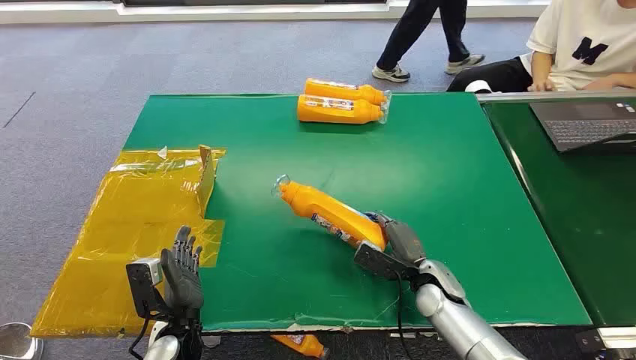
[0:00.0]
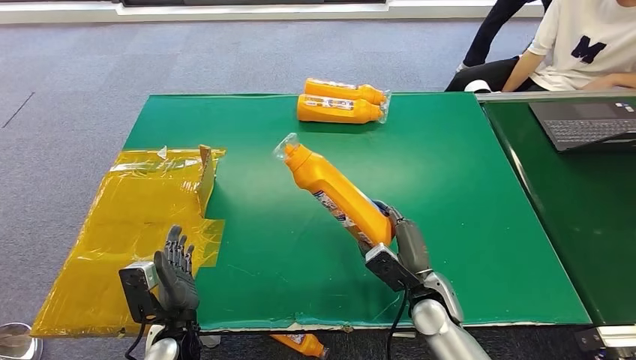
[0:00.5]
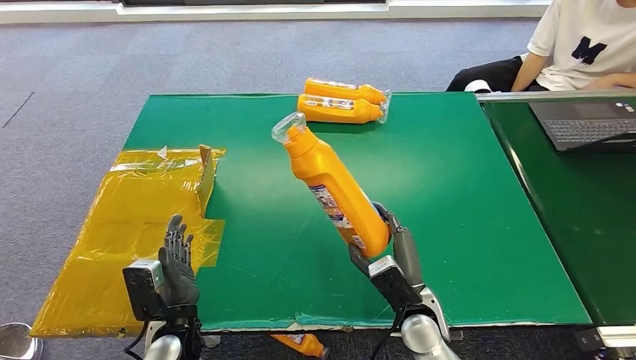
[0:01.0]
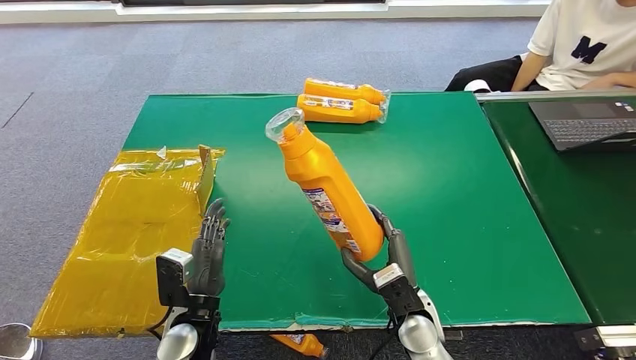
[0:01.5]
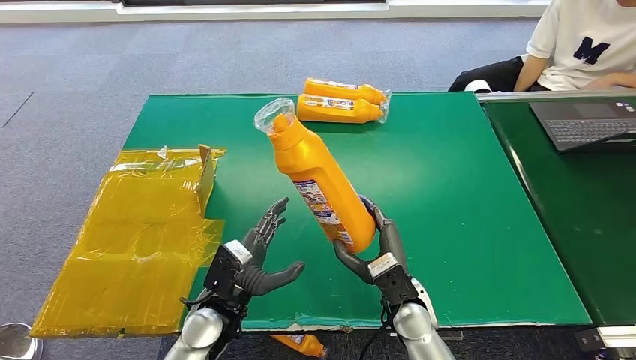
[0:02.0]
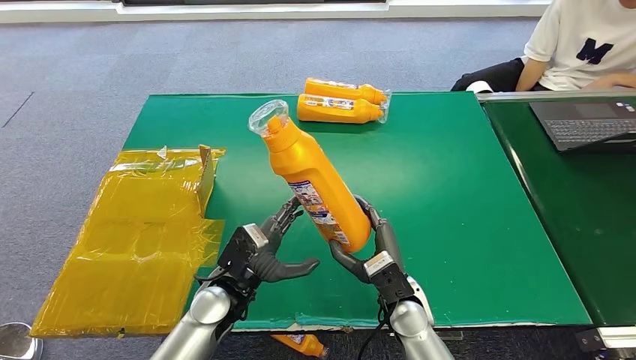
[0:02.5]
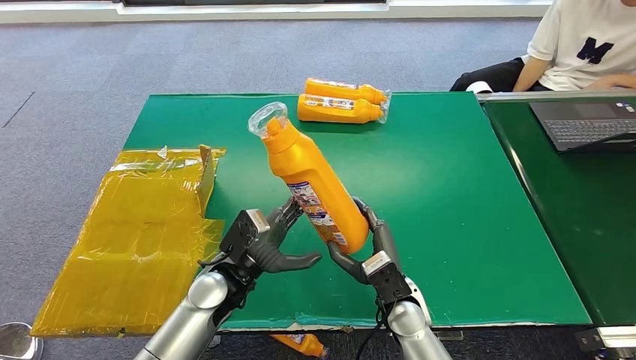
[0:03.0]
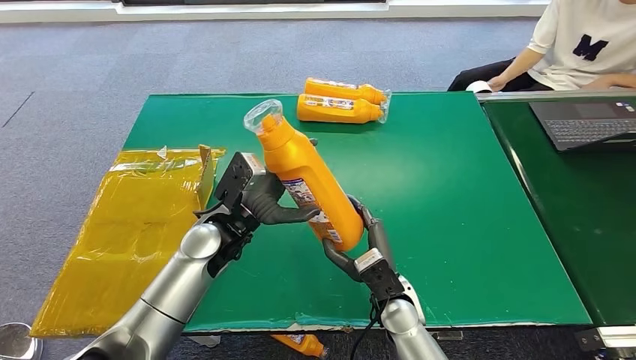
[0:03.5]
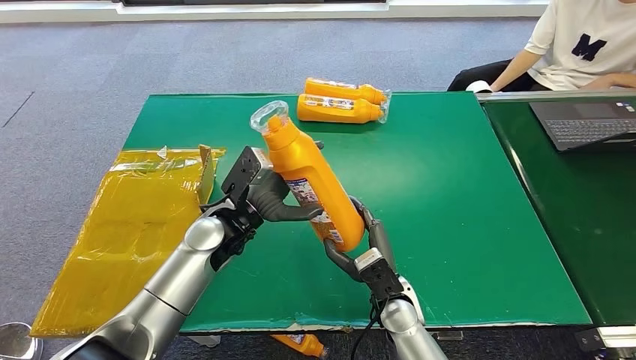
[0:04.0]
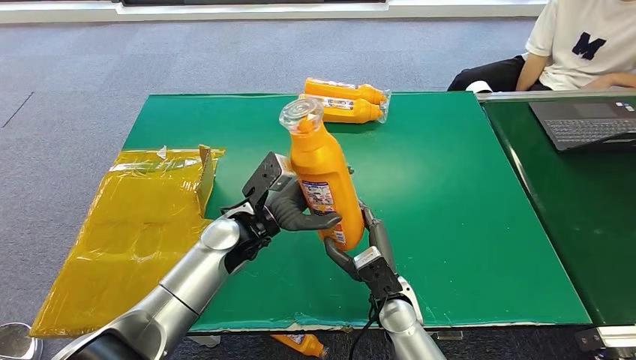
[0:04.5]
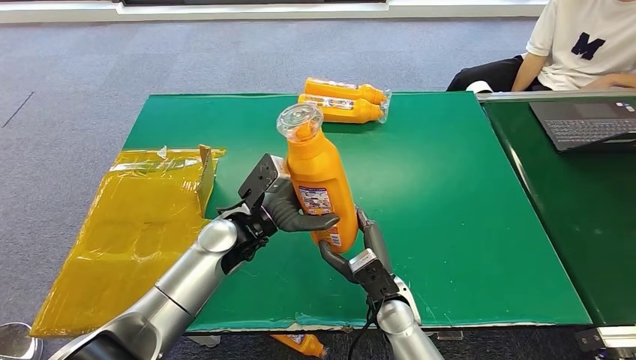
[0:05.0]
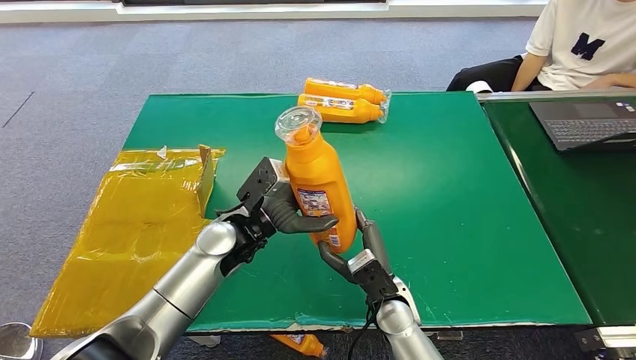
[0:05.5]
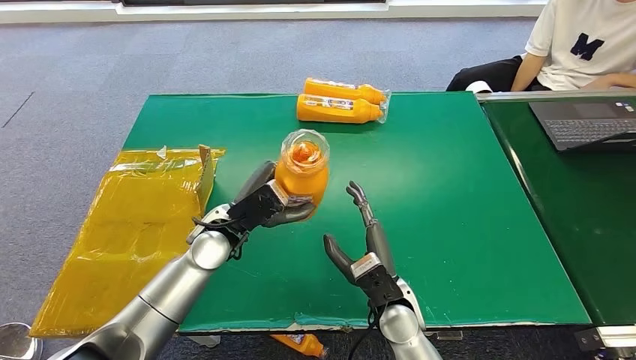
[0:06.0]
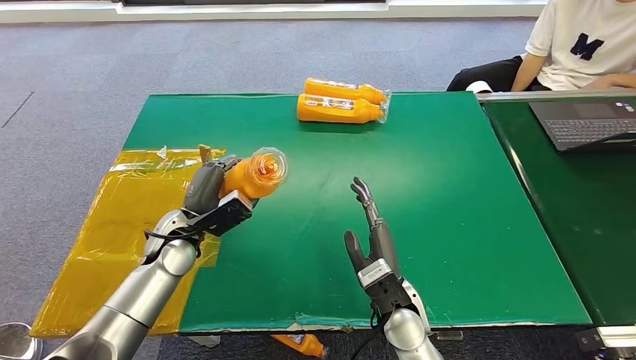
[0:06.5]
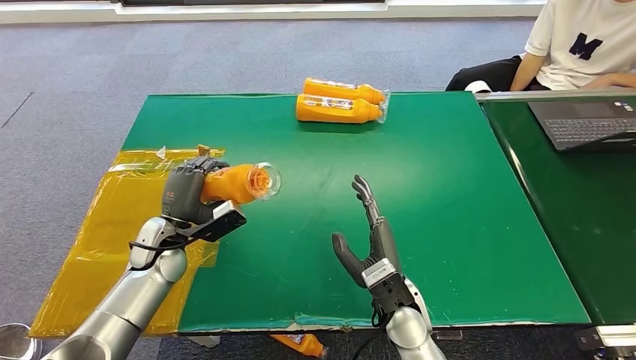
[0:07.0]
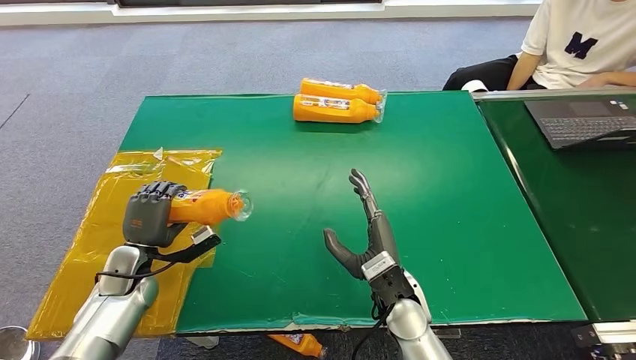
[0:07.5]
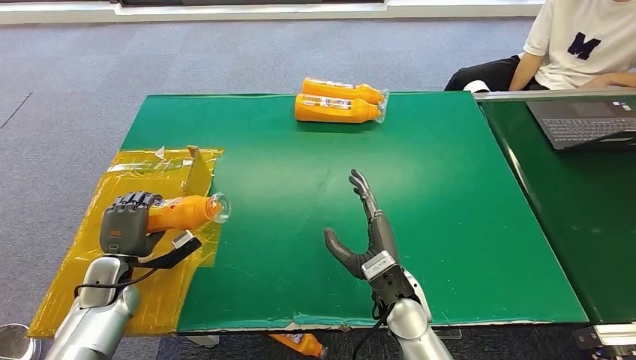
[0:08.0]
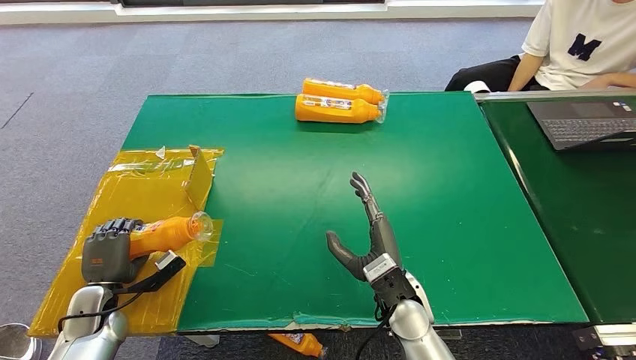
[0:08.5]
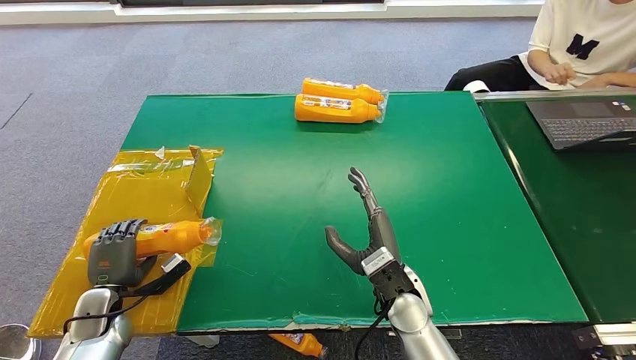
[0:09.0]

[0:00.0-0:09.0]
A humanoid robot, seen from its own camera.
Step, 0:00.0 to 0:00.5: Pick up the bottle from the table.
Step, 0:04.5 to 0:09.0: Turn the bottle to the front side.
0:02.0 to 0:04.5: The left hand travels forward and upward by about 15 cm.
0:04.5 to 0:07.0: The left hand heads to the left, covering roughly 15 cm.
0:07.0 to 0:09.0: The left hand moves to the left, backward and downward, about 20 cm.

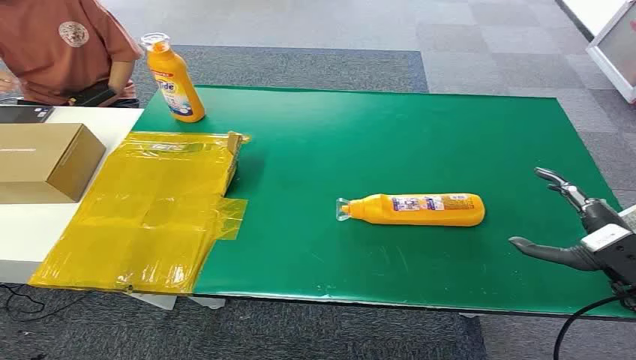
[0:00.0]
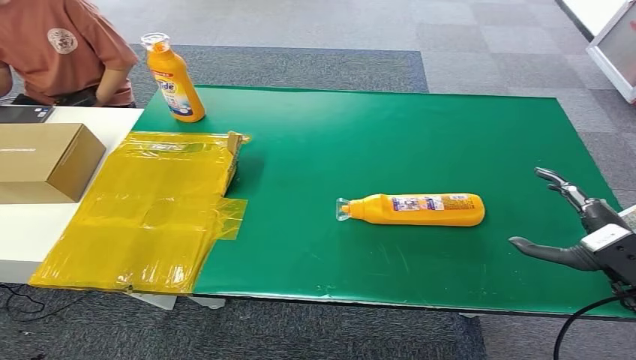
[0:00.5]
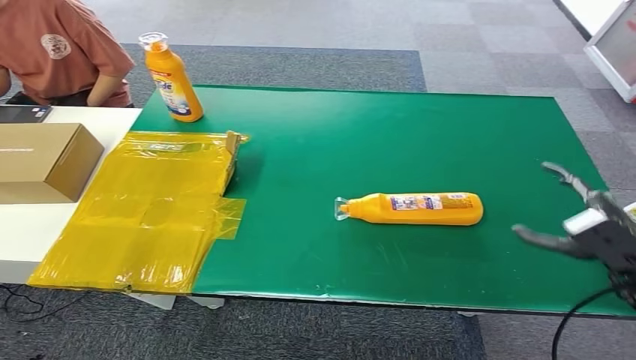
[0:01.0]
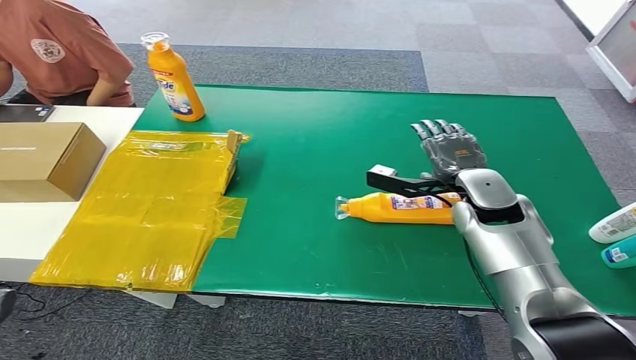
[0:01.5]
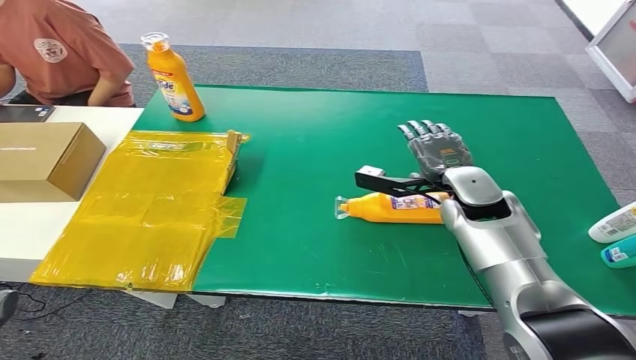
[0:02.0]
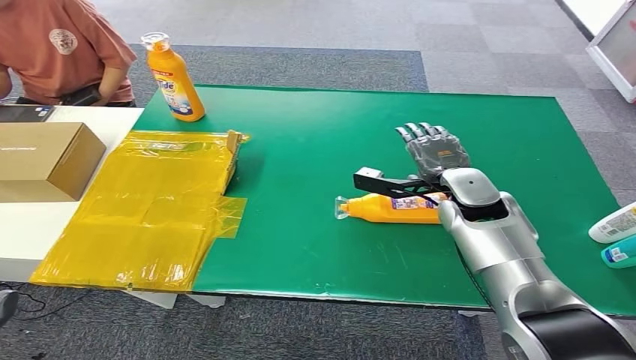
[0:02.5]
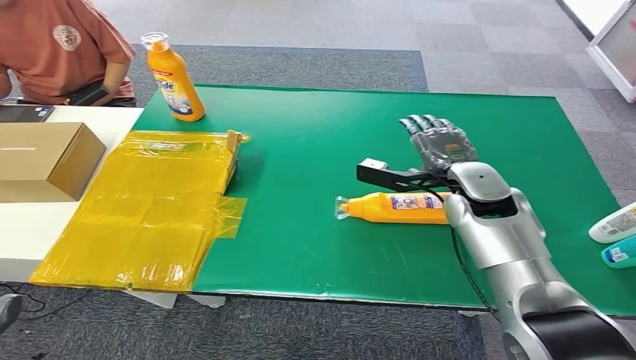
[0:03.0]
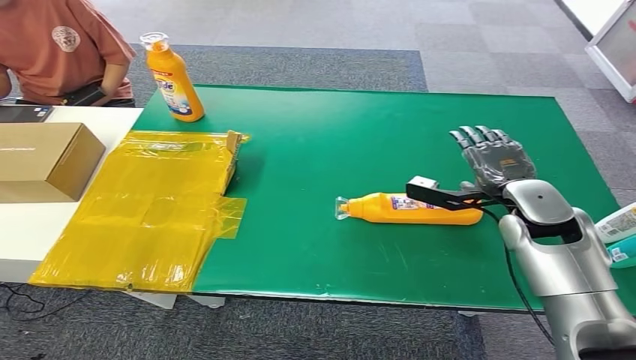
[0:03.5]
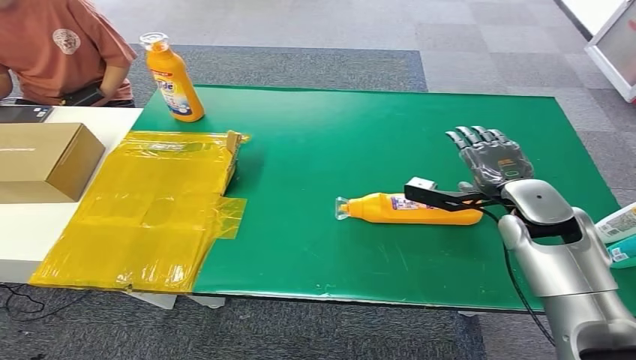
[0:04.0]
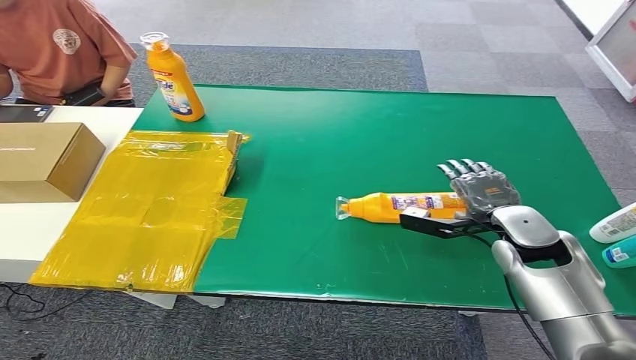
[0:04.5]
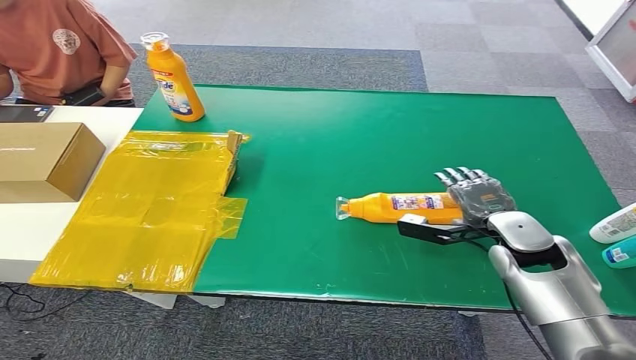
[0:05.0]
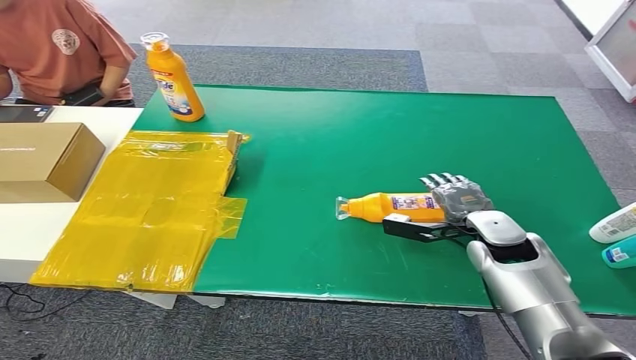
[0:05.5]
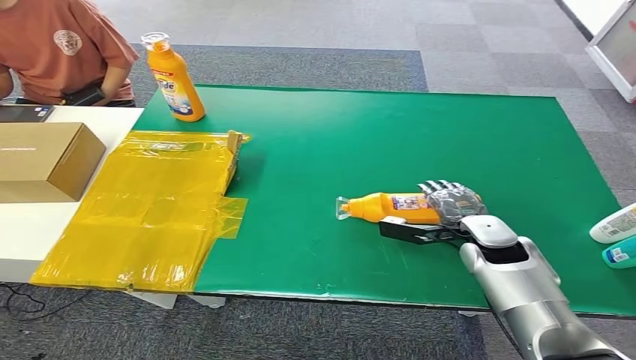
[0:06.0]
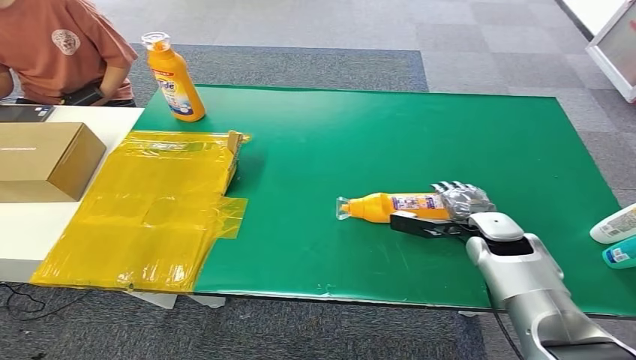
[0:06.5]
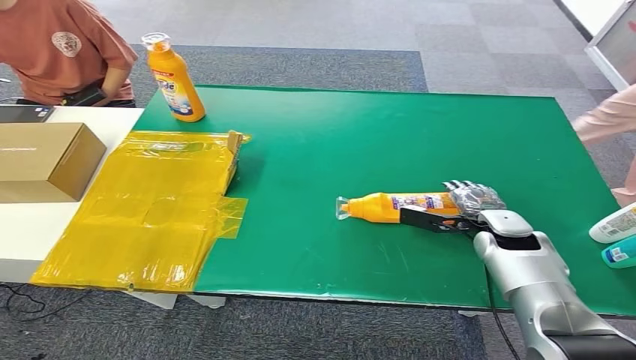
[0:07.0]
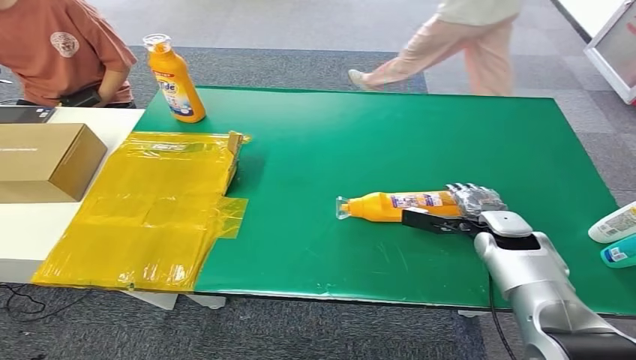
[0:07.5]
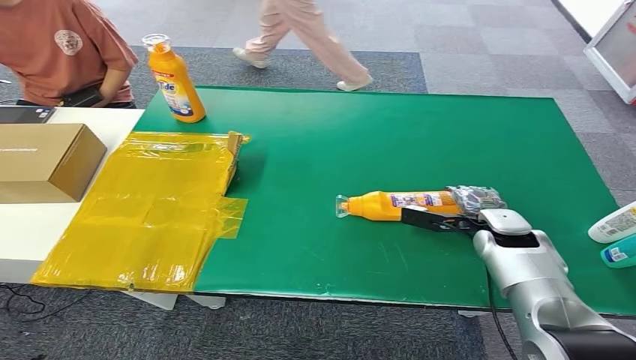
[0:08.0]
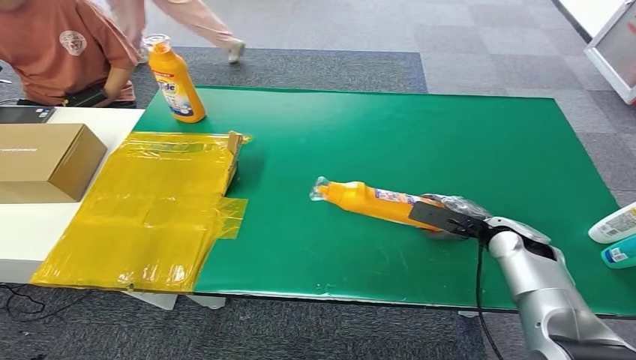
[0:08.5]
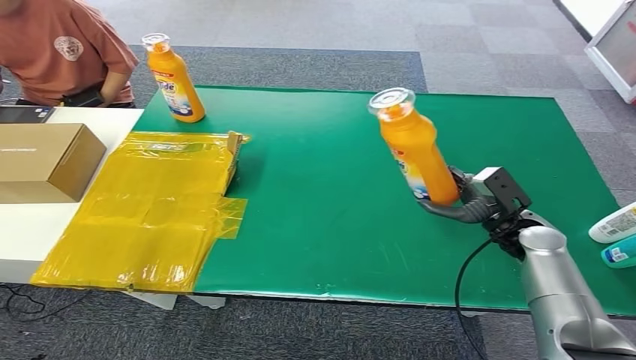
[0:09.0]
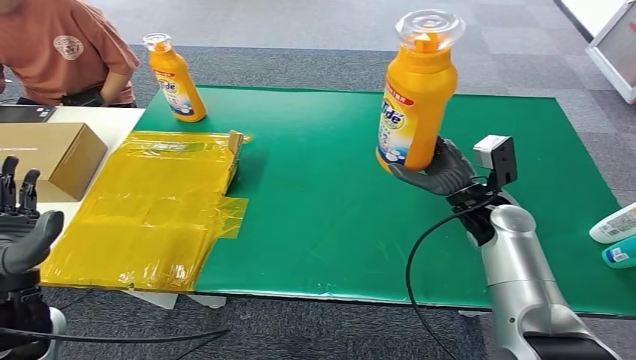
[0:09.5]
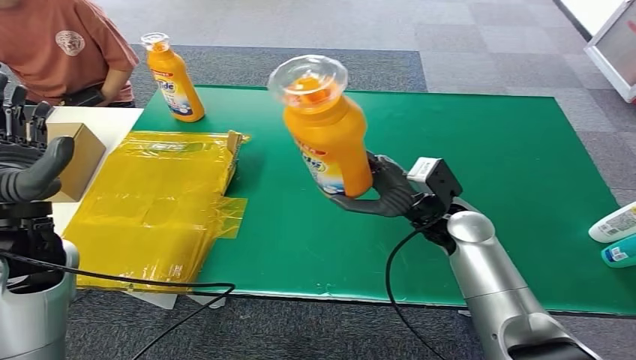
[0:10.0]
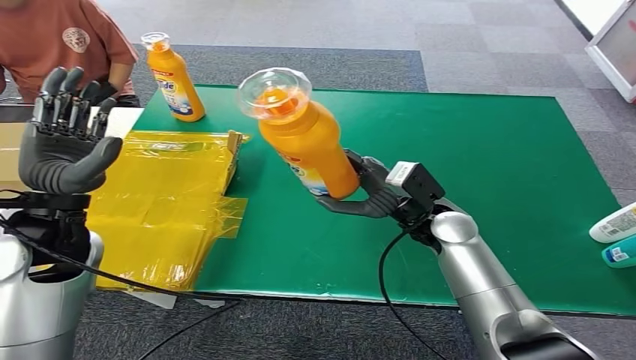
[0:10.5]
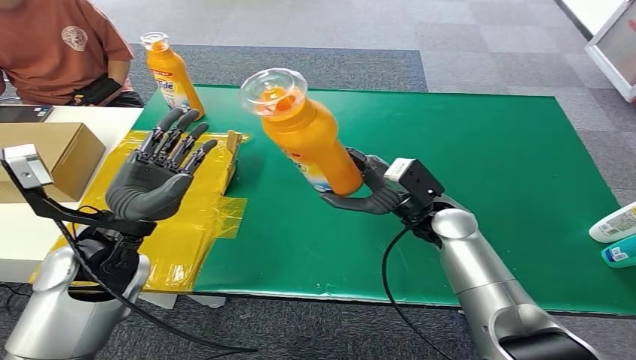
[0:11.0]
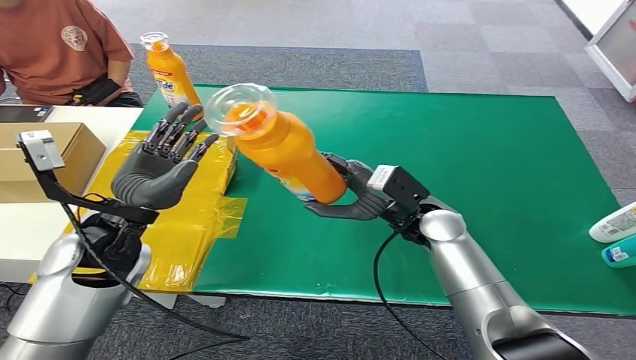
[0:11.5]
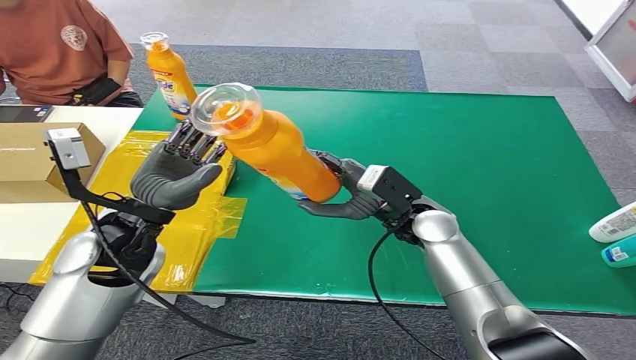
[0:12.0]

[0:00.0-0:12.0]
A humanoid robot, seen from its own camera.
Step, 0:00.0 to 0:09.5: Pick up the bottle from the table.
0:02.0 to 0:04.0: The left hand shifts by roughly 5 cm; the right hand moves to the right, roughly 5 cm.
0:04.0 to 0:06.0: The right hand travels downward by some 10 cm.
0:06.0 to 0:08.0: The right hand ends up some 5 cm from where it was.
